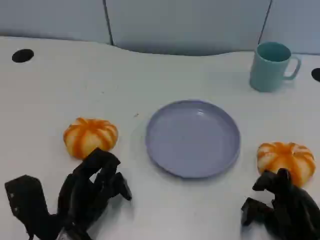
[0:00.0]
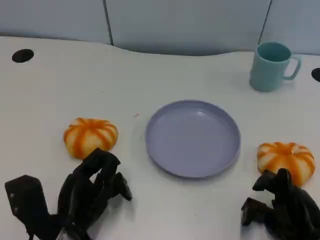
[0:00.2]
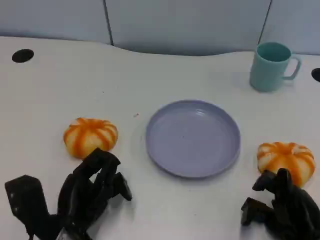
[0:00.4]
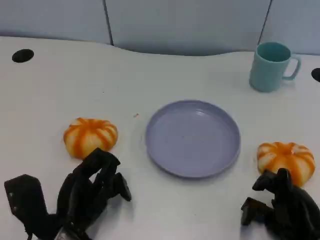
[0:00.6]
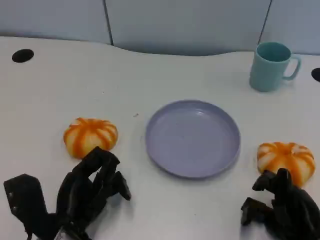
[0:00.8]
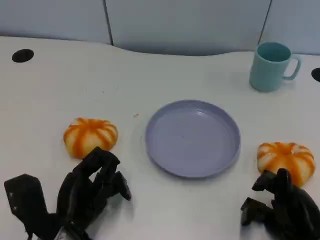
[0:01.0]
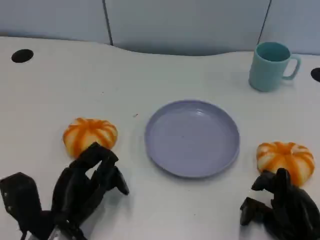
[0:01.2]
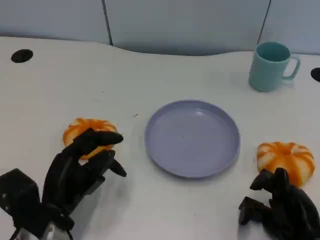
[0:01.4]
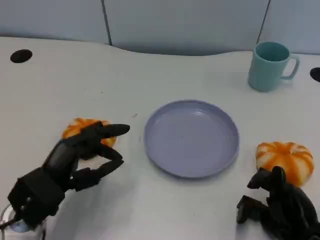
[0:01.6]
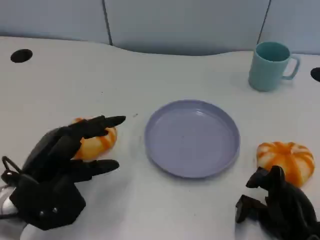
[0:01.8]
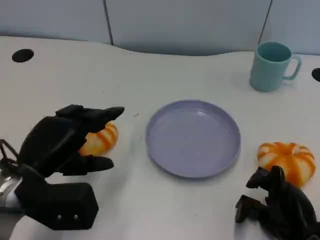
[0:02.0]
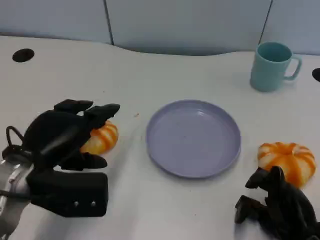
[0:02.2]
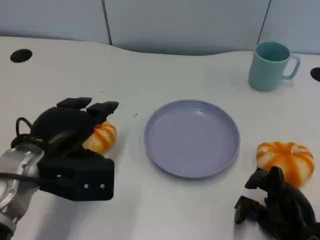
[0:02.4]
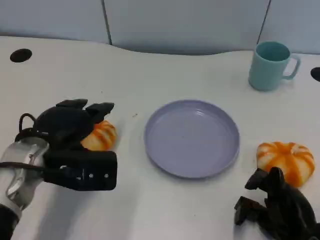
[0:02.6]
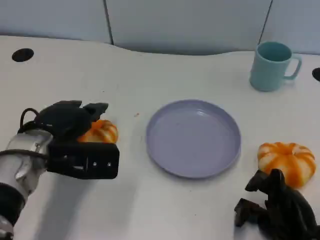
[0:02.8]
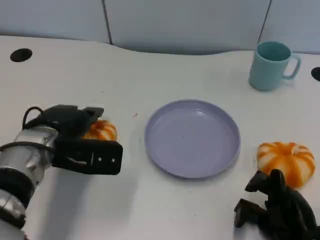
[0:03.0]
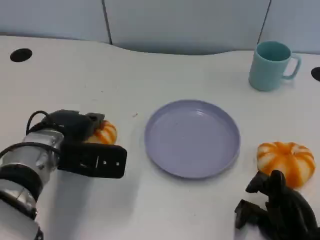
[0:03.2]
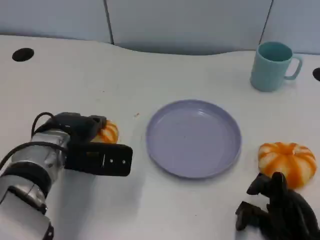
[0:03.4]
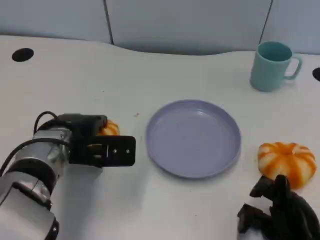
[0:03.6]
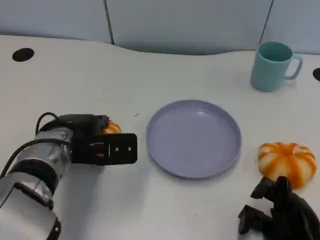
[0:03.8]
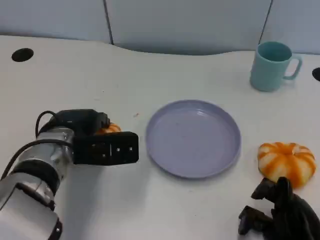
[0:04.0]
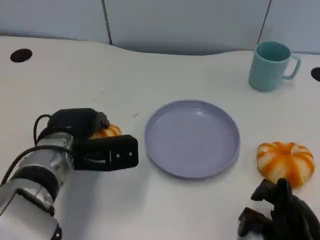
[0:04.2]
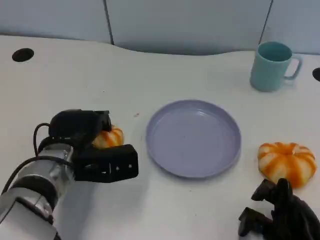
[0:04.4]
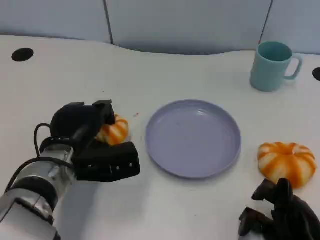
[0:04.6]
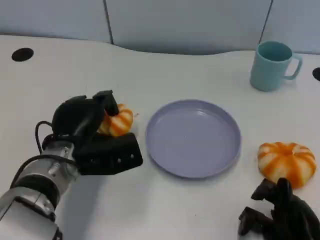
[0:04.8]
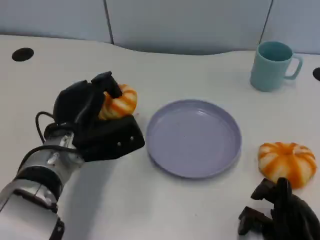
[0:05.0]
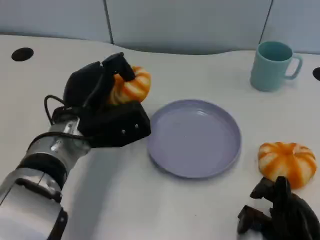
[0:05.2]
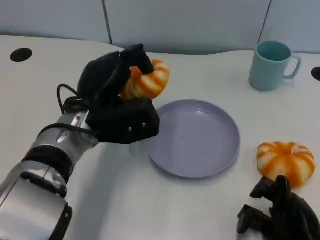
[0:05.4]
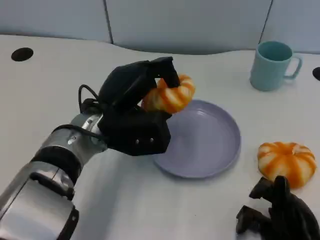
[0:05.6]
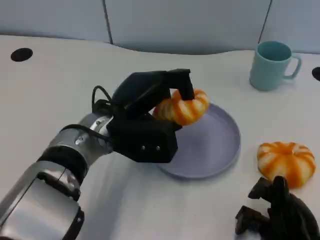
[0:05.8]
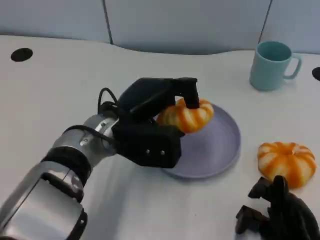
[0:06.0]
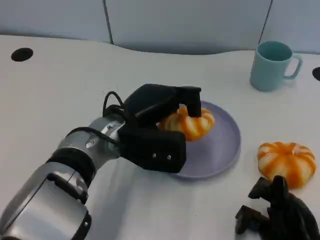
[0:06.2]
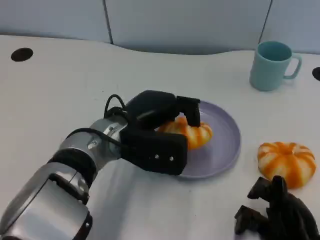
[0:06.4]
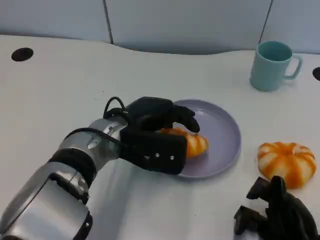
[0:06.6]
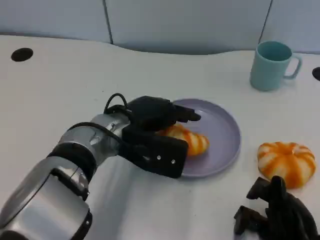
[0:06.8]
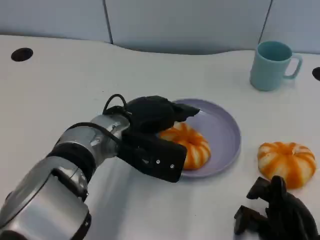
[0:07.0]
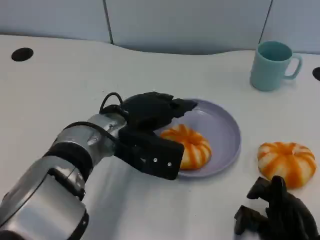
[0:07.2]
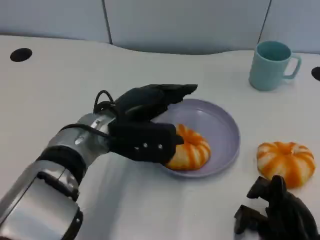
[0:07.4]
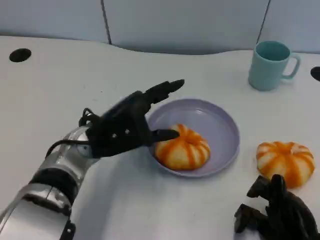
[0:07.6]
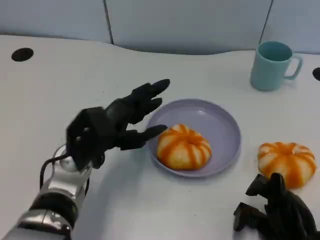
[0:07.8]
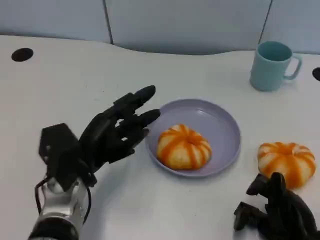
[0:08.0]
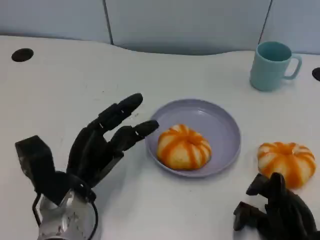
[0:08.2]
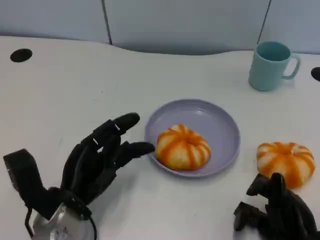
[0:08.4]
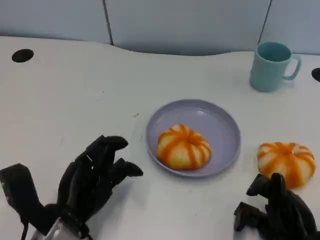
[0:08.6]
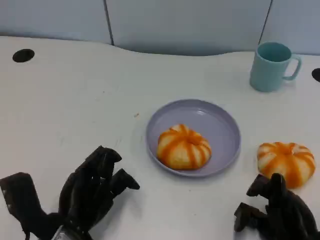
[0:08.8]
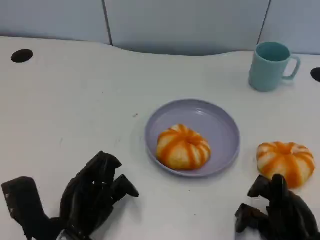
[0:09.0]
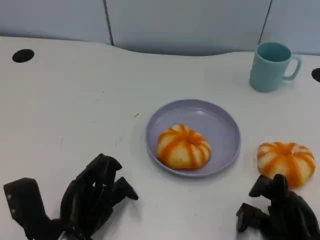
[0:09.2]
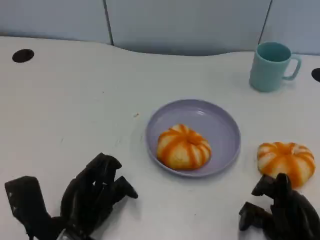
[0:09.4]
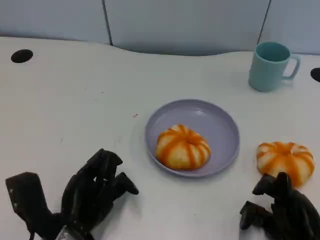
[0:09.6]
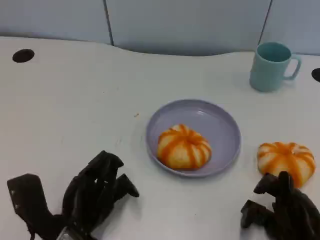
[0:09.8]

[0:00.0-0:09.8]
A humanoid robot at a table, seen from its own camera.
Task of the whole recording: Grasp the bread from the table and place it into the plate.
0:01.4 to 0:02.8: The left hand is displaced forward and upward by approximately 10 cm.
0:02.8 to 0:04.2: The hands move only a little.
0:04.2 to 0:05.6: The left hand goes roughly 10 cm to the right and upward.
0:07.0 to 0:08.4: The left hand travels to the left, backward and downward by some 15 cm.
0:08.4 to 0:09.8: The hands stay close to where they were, moving slightly.

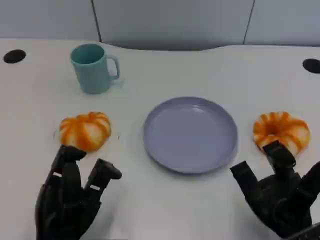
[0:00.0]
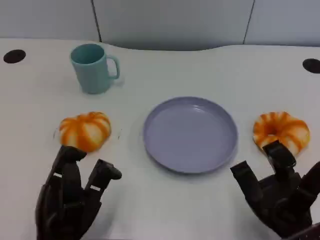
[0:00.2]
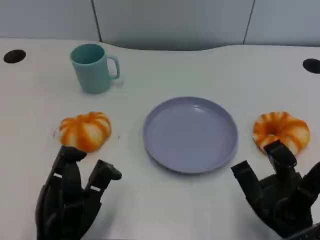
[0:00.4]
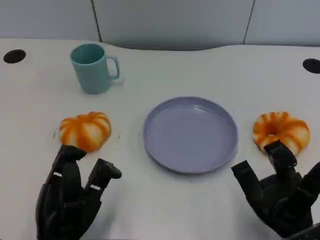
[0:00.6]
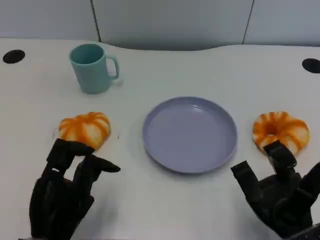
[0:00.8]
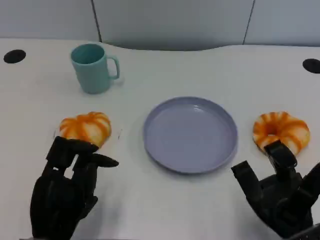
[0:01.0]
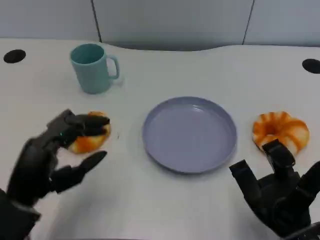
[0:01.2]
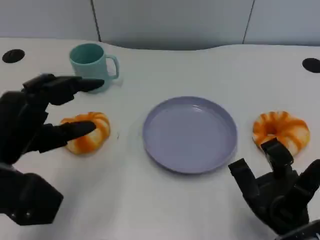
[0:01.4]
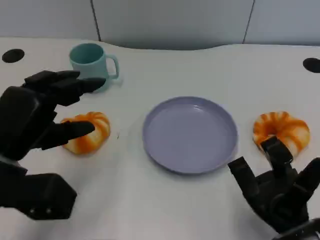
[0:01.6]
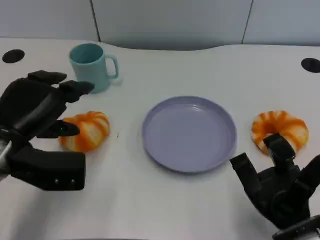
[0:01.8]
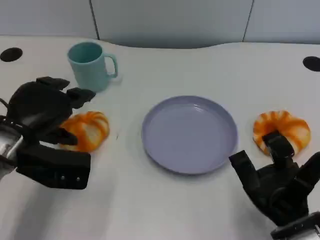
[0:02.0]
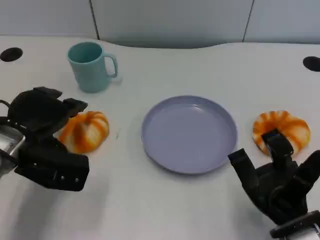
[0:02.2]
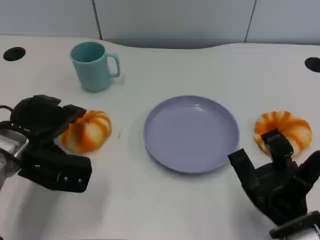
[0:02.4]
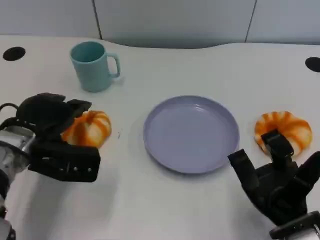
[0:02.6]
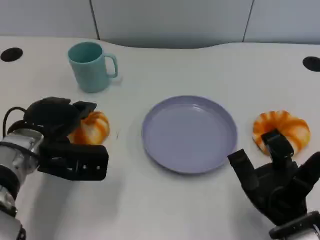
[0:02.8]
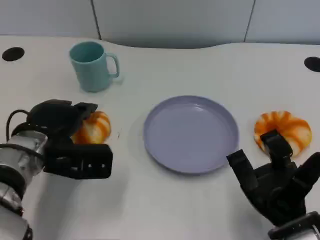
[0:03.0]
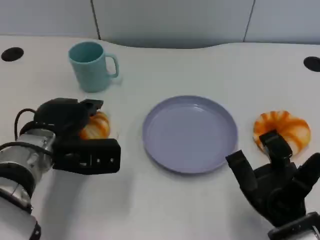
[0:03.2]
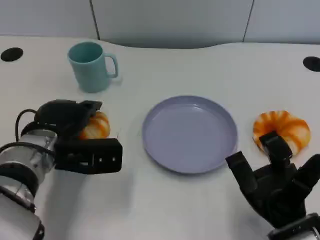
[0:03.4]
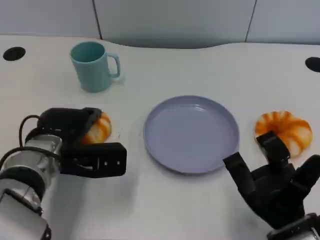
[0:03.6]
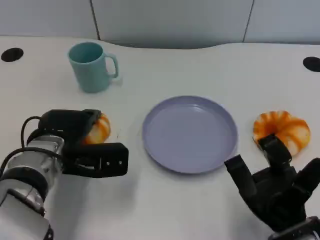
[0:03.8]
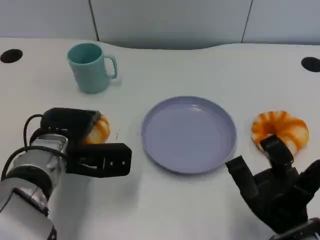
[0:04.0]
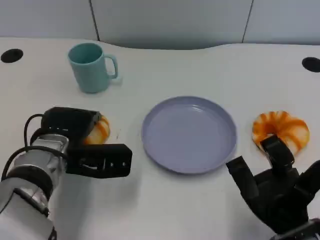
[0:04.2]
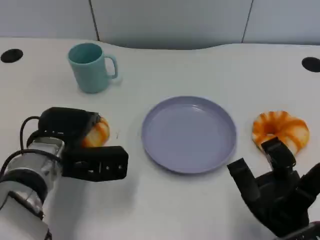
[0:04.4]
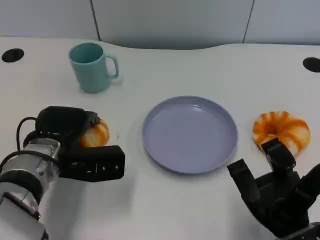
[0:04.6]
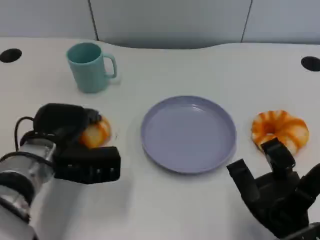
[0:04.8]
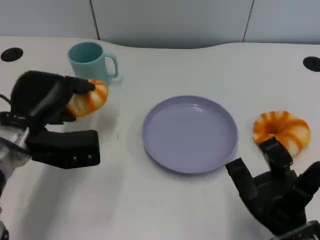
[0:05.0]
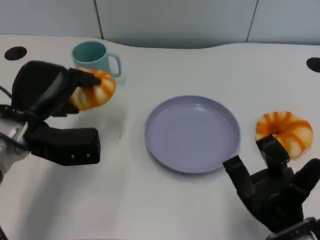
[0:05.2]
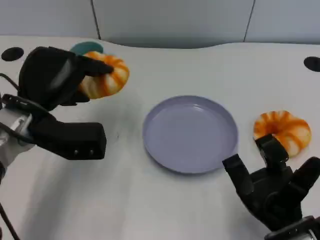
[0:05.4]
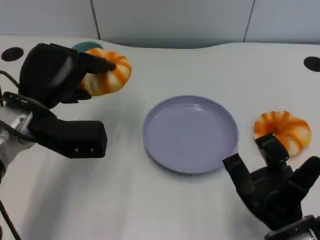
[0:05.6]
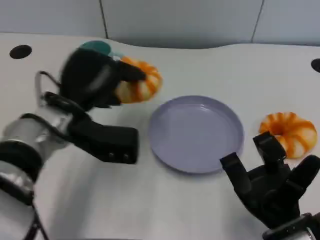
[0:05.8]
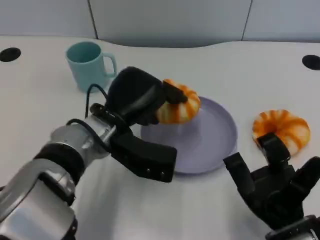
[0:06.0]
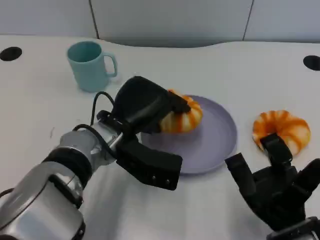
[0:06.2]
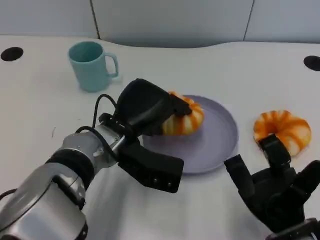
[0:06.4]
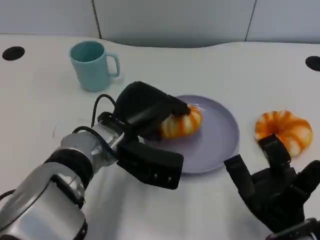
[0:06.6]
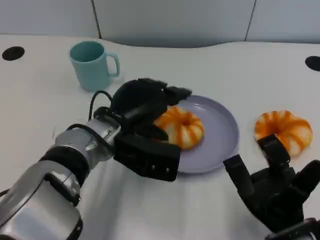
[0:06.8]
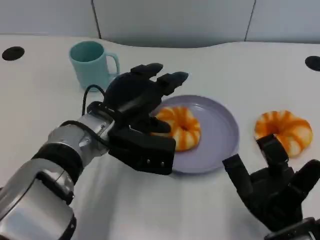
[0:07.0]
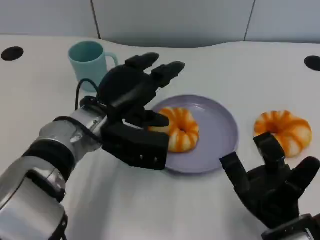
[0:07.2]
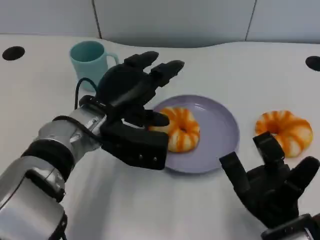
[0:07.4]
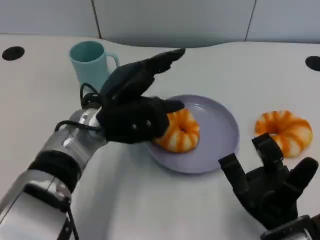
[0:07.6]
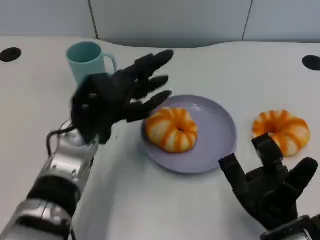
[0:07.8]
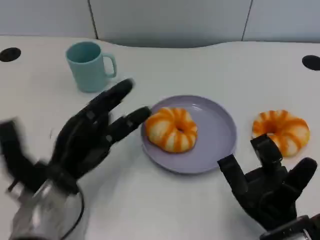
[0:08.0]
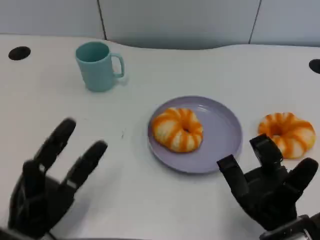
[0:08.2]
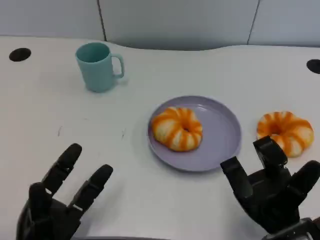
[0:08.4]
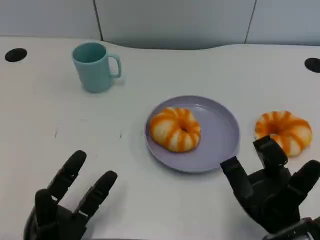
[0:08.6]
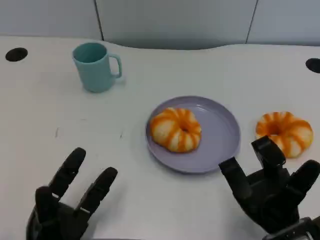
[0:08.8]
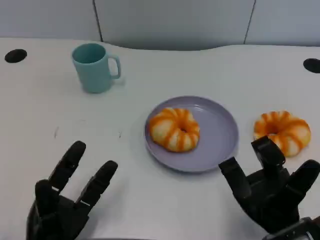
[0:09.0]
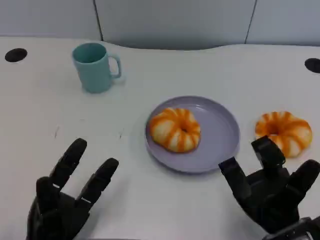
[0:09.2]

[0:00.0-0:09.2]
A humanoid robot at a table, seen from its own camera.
Task of the whole recording: Grasp the bread from the table and place it into the plate.
0:00.0 to 0:01.6: The left hand is displaced upward and forward by roughly 15 cm.
0:01.6 to 0:03.0: The left hand shifts roughly 5 cm forward.
0:03.0 to 0:04.6: The hands move only a little.
0:04.6 to 0:06.2: The left hand moves to the right, approximately 10 cm.
0:07.6 to 0:09.2: The left hand is displaced backward, downward and to the left by some 25 cm.

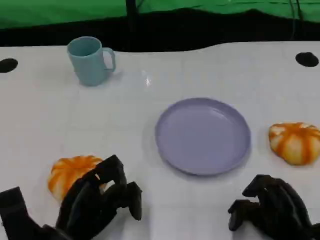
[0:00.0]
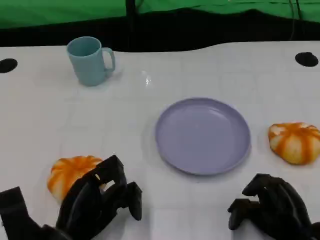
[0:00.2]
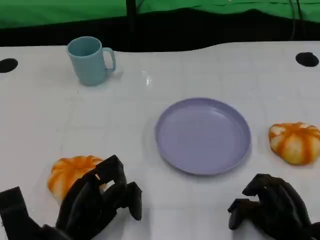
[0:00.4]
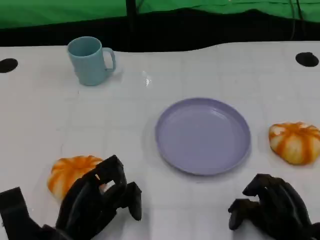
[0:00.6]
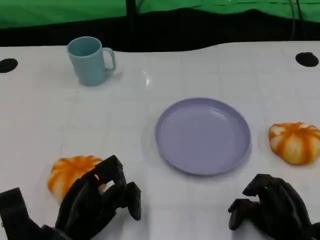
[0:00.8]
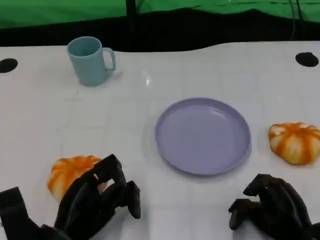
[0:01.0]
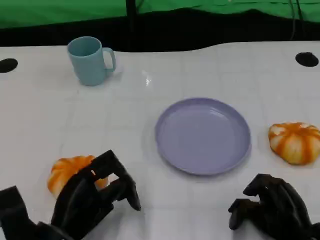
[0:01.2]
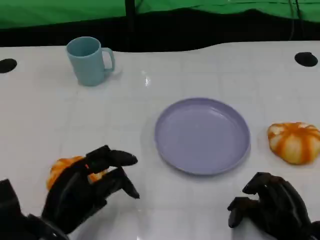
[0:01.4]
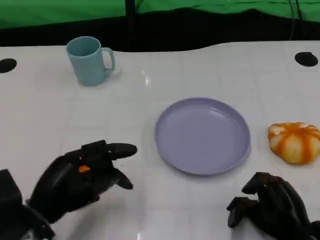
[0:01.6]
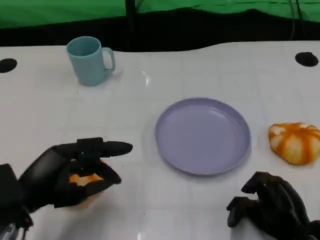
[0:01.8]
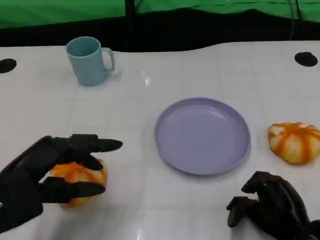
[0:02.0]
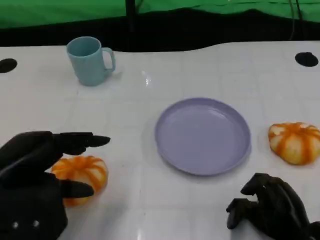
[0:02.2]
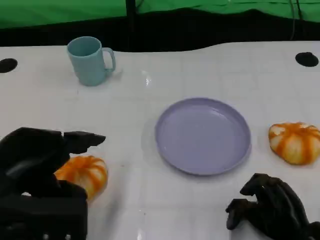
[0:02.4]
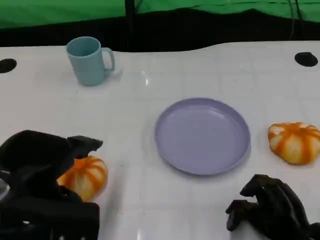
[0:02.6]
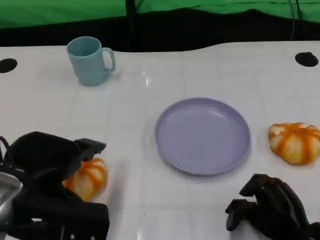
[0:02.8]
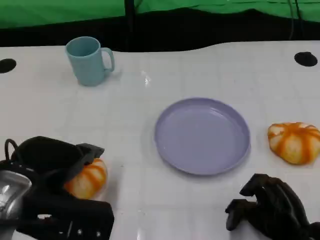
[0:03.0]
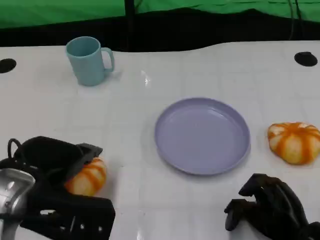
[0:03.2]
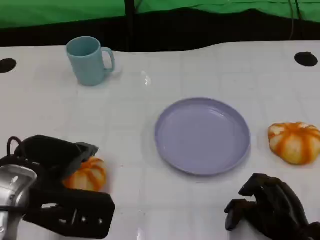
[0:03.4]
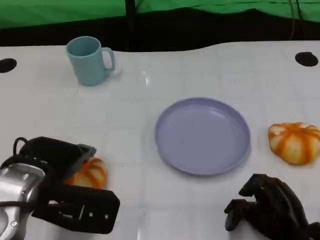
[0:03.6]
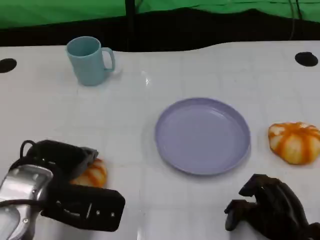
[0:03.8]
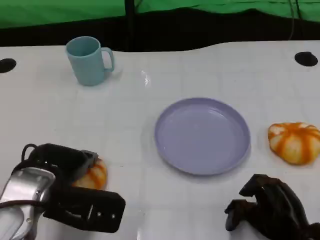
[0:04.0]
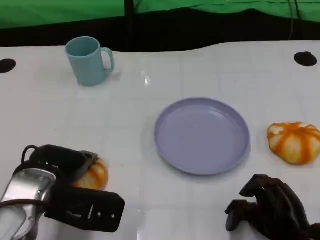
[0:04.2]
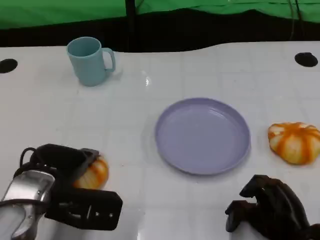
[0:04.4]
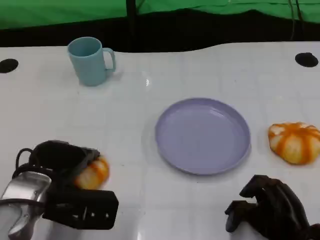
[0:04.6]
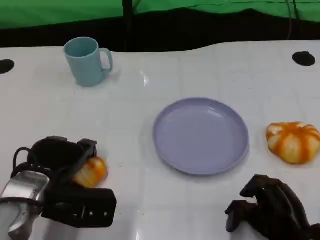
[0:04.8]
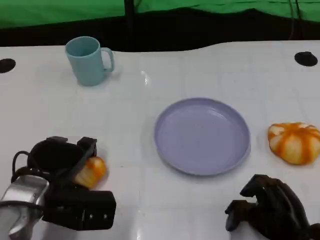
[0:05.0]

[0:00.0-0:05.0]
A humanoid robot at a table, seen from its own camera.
Task of the whole recording: Grasp the bread from the table and place it into the plate.
0:00.0 to 0:01.6: The left hand is displaced upward by some 5 cm.
0:01.6 to 0:03.4: The left hand shifts roughly 5 cm upward.
0:03.4 to 0:05.0: The left hand is displaced downward by approximately 10 cm.
